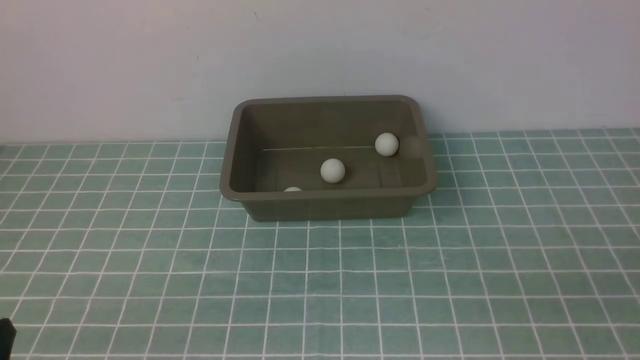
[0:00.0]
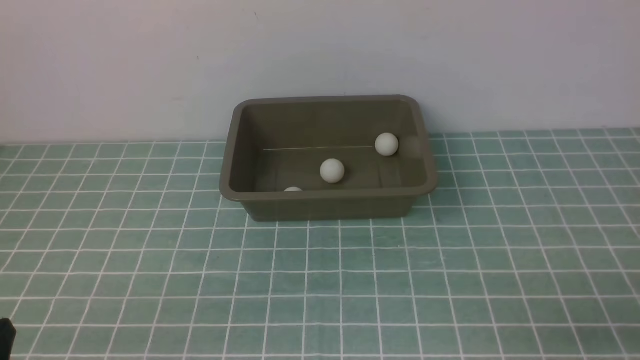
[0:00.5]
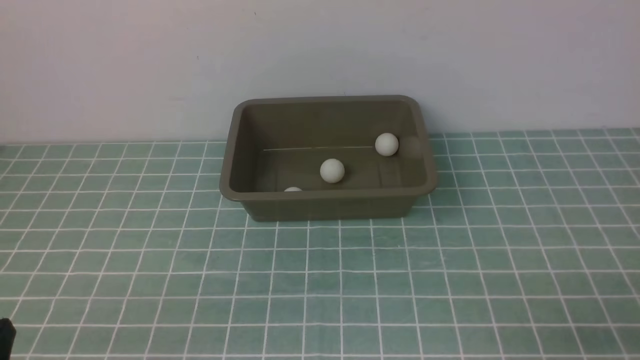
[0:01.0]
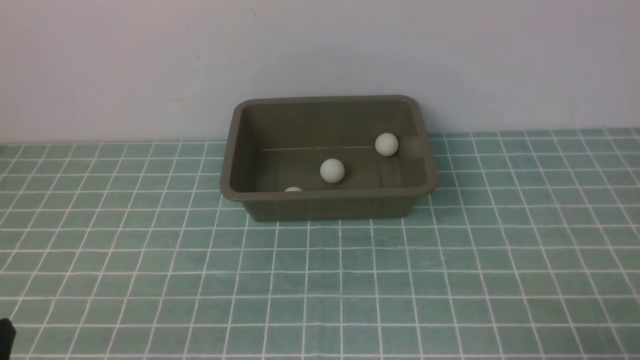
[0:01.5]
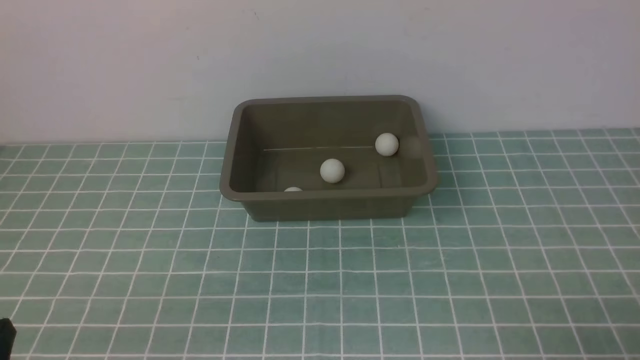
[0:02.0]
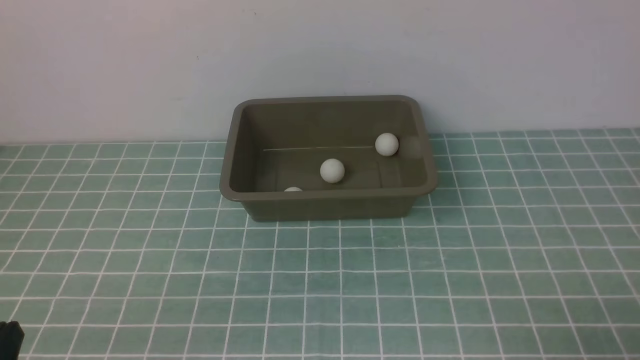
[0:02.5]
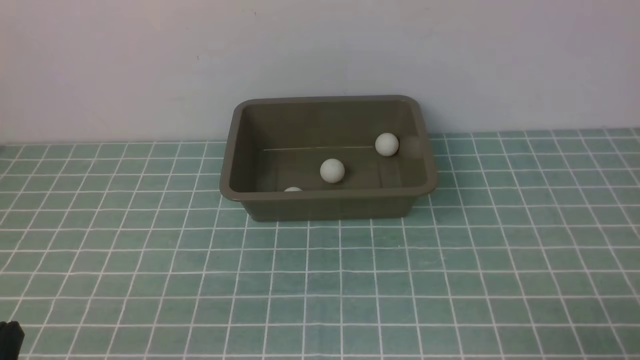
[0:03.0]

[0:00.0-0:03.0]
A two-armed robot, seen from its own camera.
0:01.5 to 0:03.0: Both grippers stay put.
